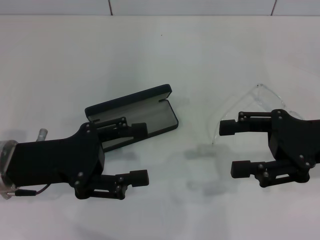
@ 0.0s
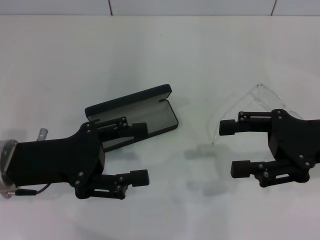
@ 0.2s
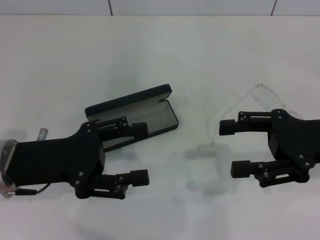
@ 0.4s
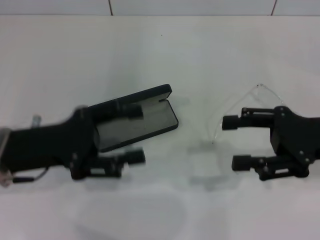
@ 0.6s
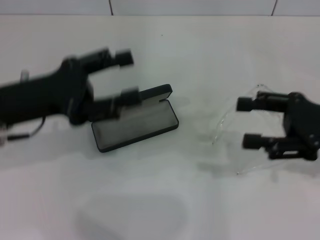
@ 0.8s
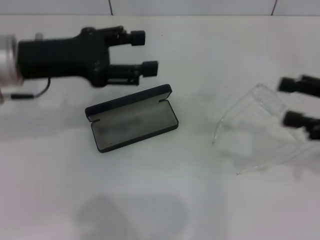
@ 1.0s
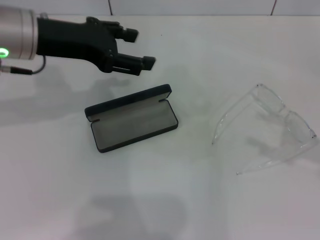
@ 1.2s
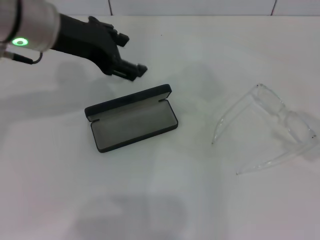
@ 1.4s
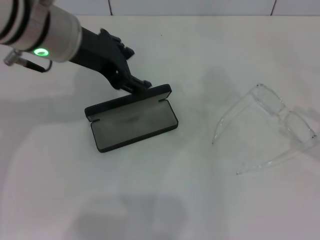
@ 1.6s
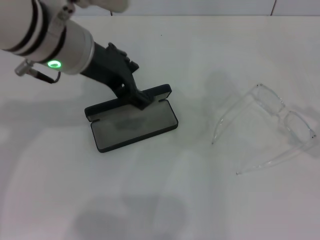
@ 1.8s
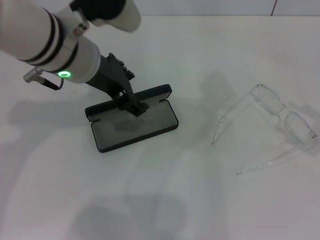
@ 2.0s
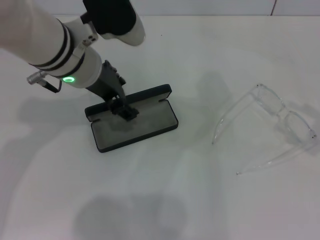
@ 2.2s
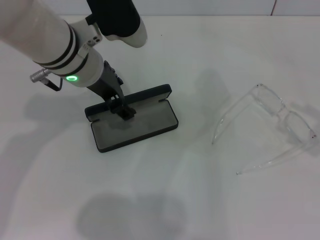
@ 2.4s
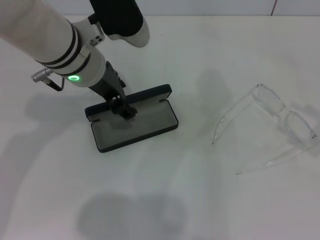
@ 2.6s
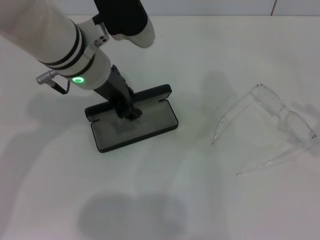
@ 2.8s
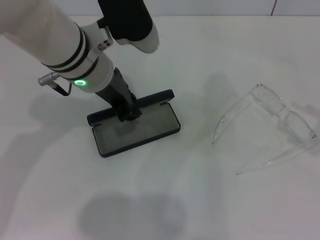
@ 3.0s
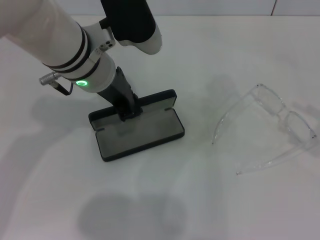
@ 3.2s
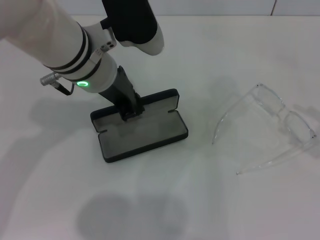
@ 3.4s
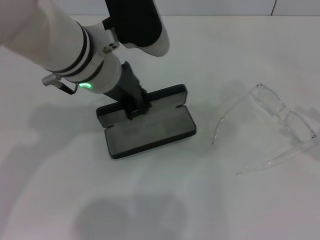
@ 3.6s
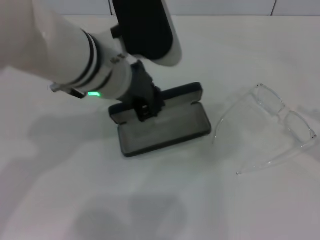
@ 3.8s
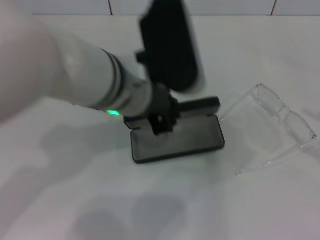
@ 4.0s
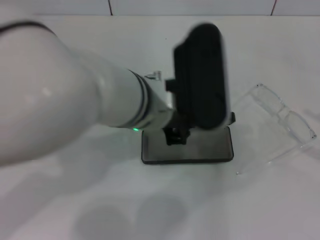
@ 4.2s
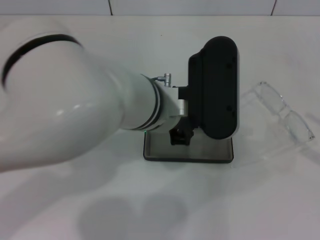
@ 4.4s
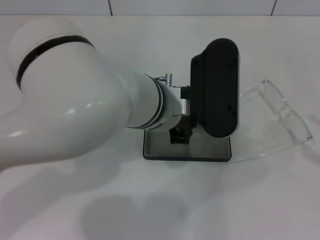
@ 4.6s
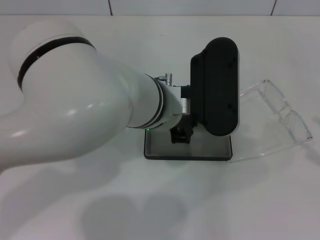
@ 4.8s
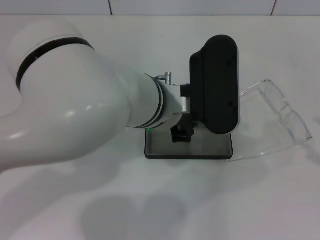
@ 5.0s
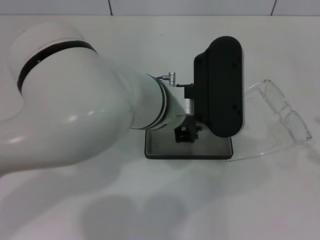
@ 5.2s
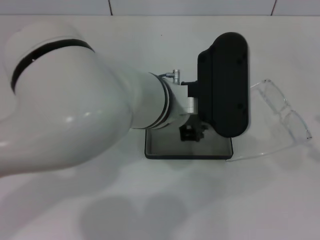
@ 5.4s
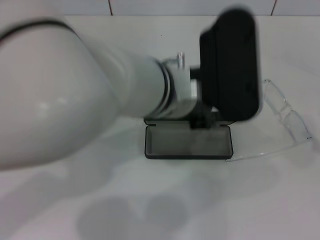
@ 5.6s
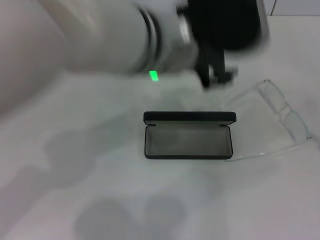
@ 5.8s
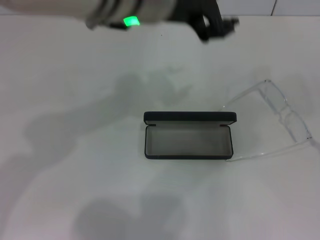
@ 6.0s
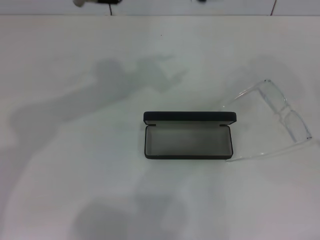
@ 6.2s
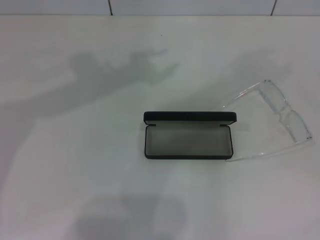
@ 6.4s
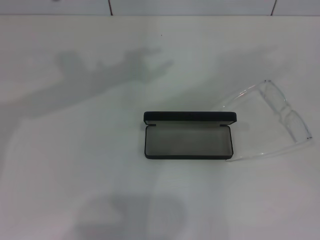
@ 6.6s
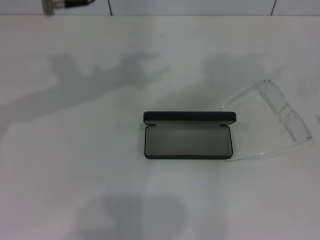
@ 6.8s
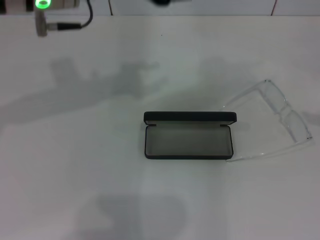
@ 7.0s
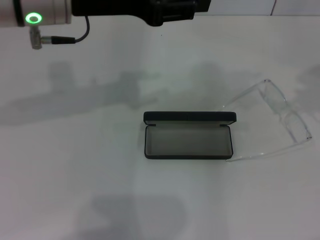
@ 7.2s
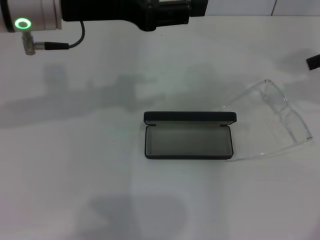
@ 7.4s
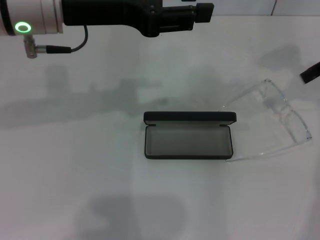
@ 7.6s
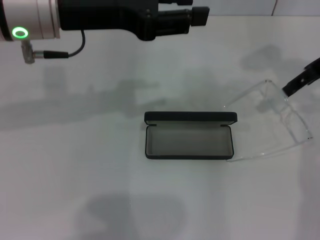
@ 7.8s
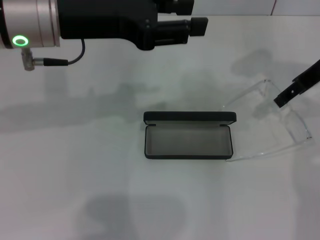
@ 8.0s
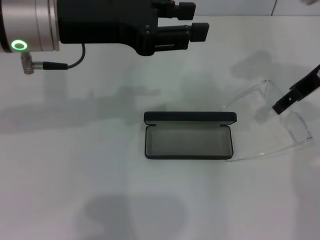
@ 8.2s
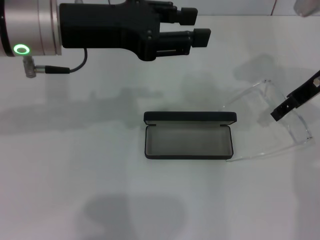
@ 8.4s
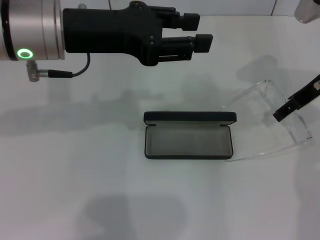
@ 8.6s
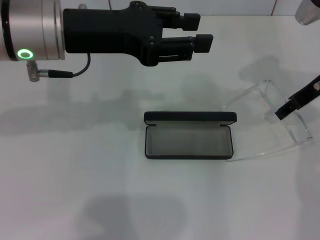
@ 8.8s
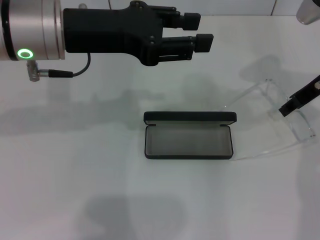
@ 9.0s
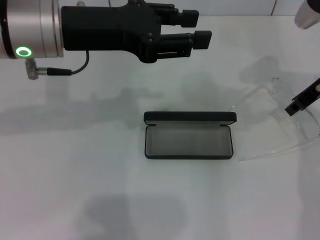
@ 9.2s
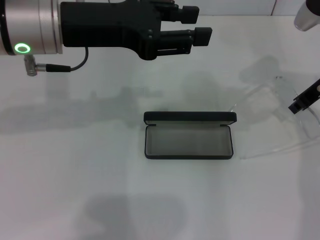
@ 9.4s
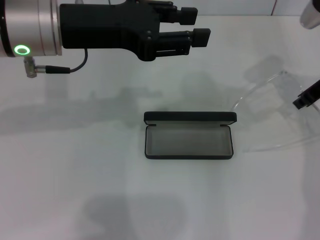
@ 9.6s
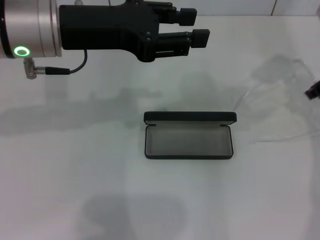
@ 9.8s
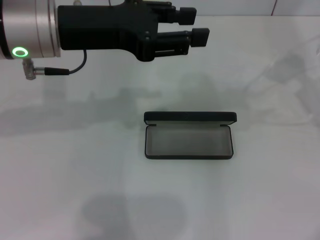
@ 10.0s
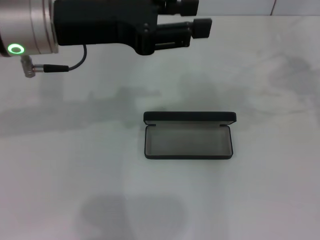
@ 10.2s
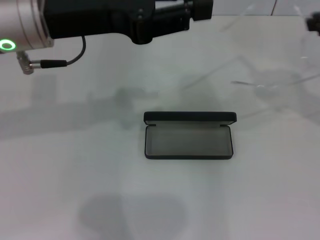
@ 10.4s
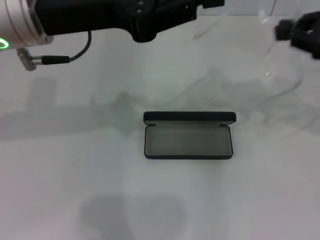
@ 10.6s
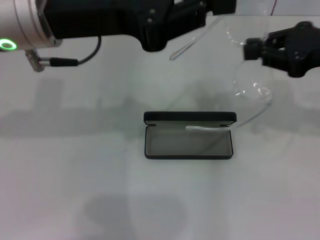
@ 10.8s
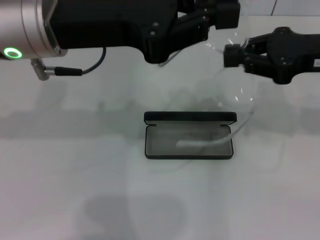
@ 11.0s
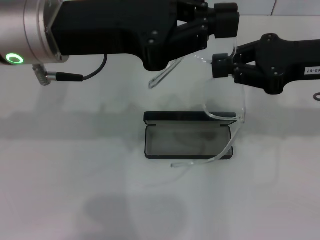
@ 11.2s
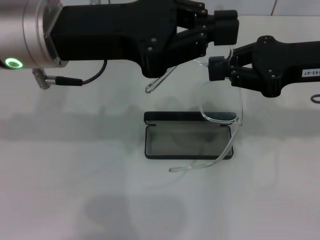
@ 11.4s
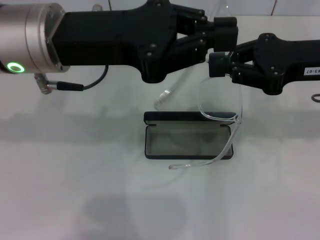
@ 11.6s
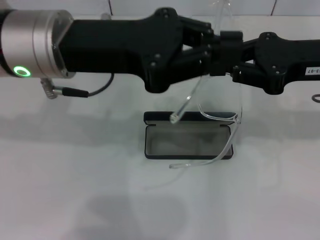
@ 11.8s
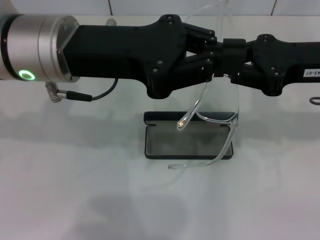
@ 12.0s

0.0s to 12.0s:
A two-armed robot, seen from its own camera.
Step, 0.0s to 2.8s: Grab the glasses case with your left hand.
Step, 3.0s to 5.0s: Place the glasses case in the center of the table with your left hand.
Step, 5.2s to 9.2s: Grab the eyeglass frame with your right hand.
0.0s to 1.6s: The left gripper heads upward, forward and to the right, covering about 20 cm, while the right gripper goes about 15 cm to the right.
1.6s to 3.0s: The left gripper travels downward by roughly 5 cm.
3.0s to 4.4s: The left gripper is displaced to the right and backward by approximately 10 cm, and closes its fingers.
4.4s to 6.0s: The left gripper heads upward, covering some 10 cm, and opens up.
6.0s to 7.6s: The left gripper is displaced to the left by roughly 10 cm, while the right gripper is displaced forward, to the left and upward by roughly 25 cm.
7.6s to 9.0s: The right gripper heads downward, covering about 10 cm.
9.0s to 10.4s: The right gripper shifts approximately 10 cm upward and backward, and closes.
10.4s to 12.0s: The left gripper closes its fingers. Meanwhile the right gripper goes approximately 10 cm to the left and downward.

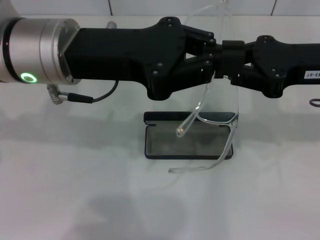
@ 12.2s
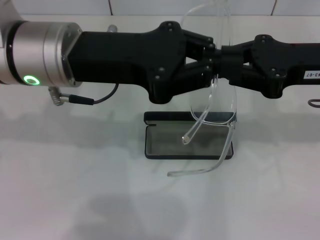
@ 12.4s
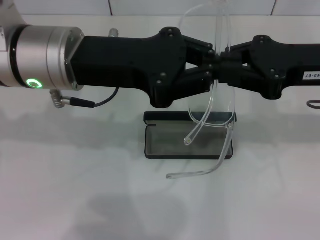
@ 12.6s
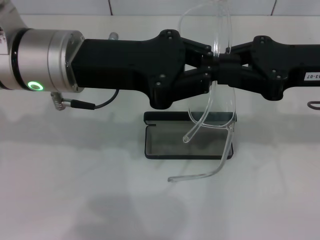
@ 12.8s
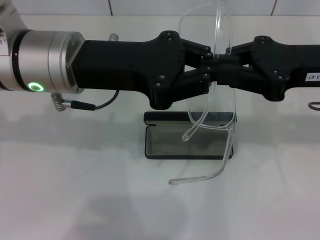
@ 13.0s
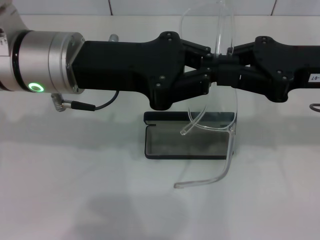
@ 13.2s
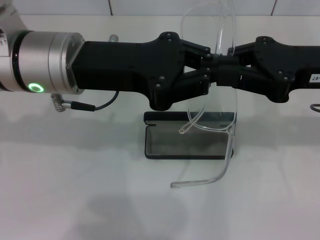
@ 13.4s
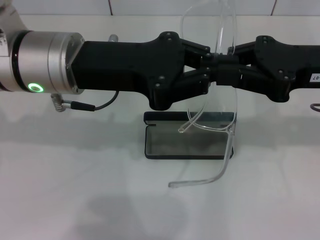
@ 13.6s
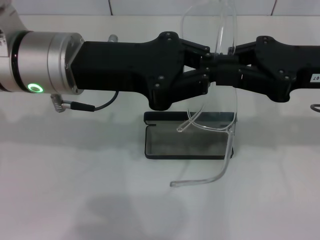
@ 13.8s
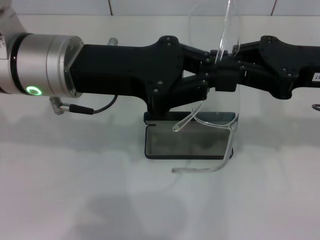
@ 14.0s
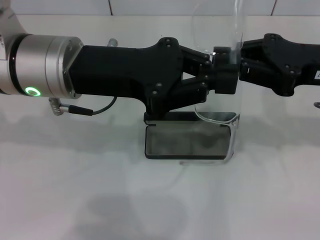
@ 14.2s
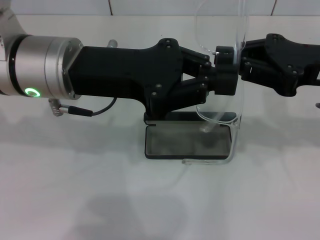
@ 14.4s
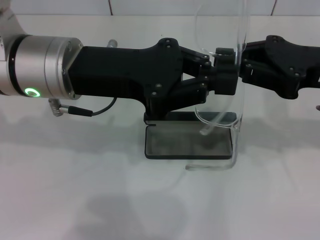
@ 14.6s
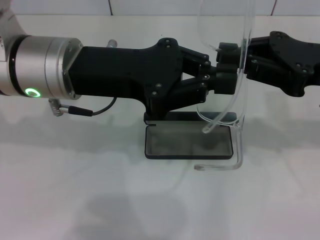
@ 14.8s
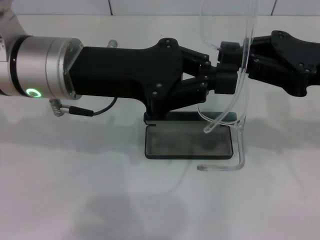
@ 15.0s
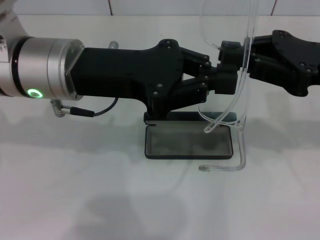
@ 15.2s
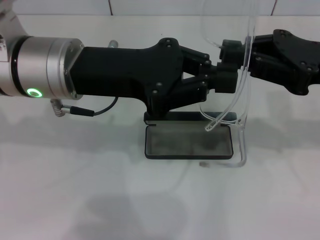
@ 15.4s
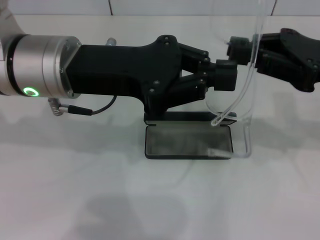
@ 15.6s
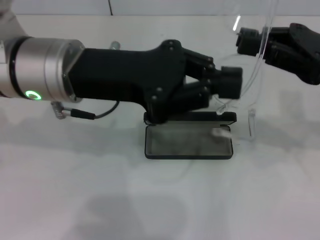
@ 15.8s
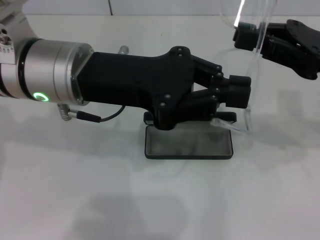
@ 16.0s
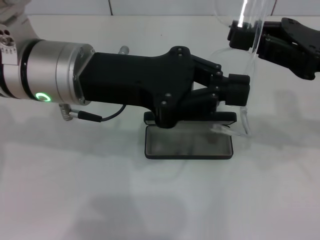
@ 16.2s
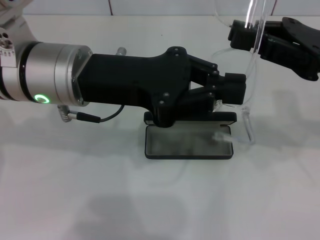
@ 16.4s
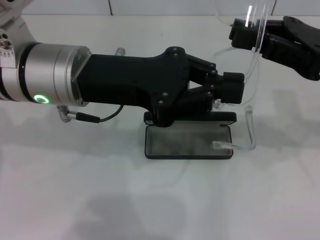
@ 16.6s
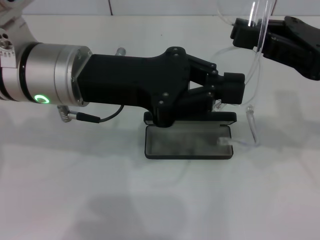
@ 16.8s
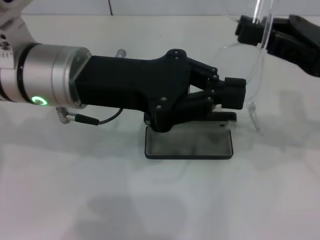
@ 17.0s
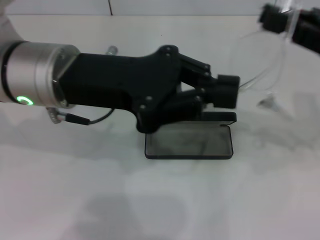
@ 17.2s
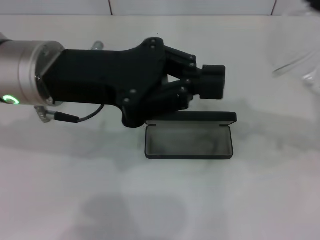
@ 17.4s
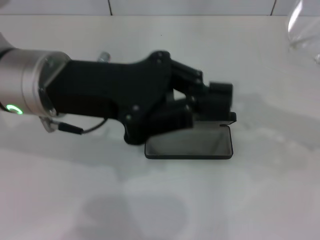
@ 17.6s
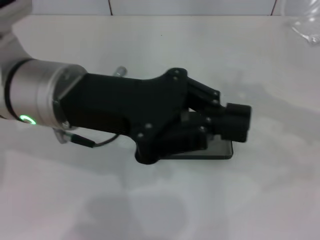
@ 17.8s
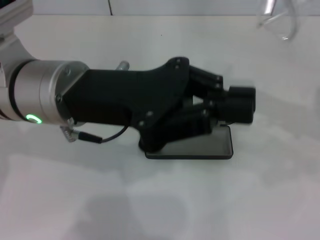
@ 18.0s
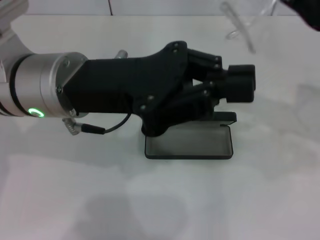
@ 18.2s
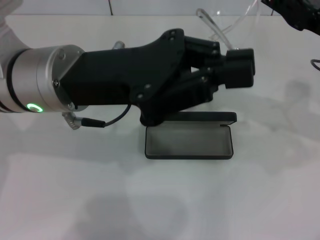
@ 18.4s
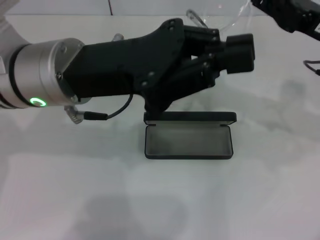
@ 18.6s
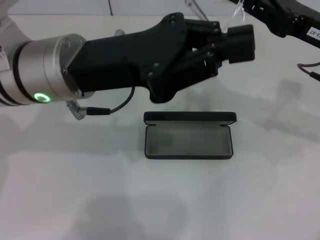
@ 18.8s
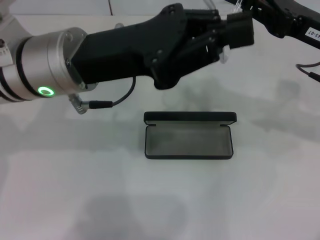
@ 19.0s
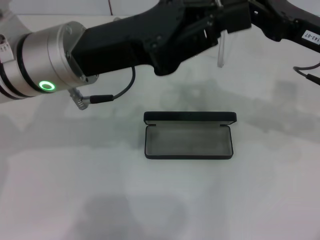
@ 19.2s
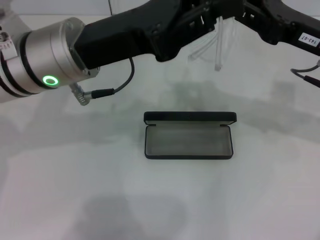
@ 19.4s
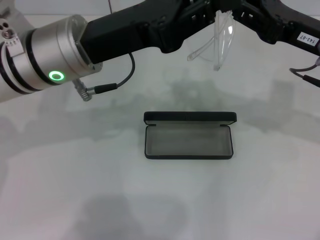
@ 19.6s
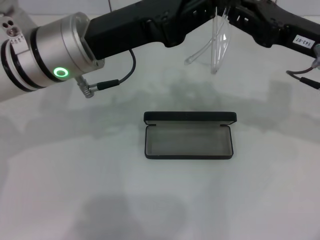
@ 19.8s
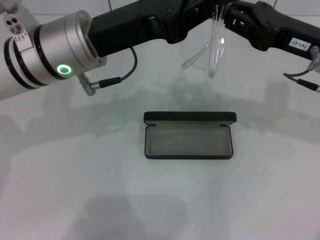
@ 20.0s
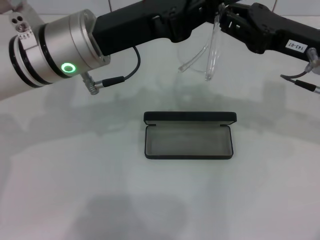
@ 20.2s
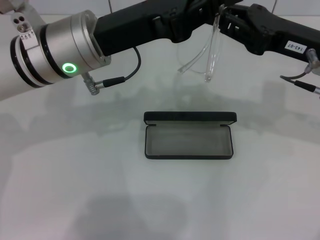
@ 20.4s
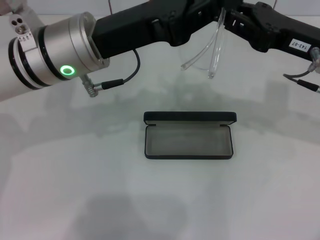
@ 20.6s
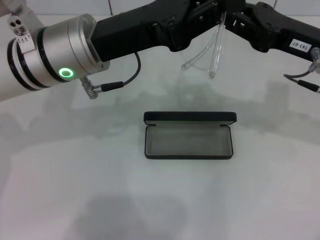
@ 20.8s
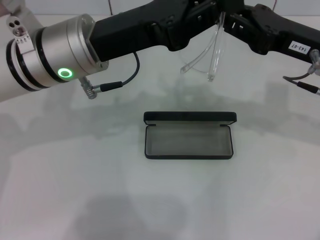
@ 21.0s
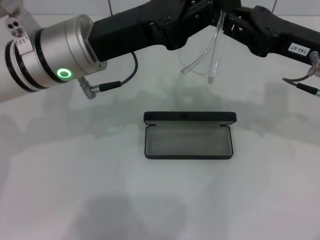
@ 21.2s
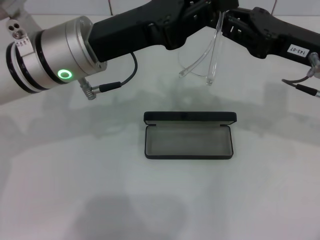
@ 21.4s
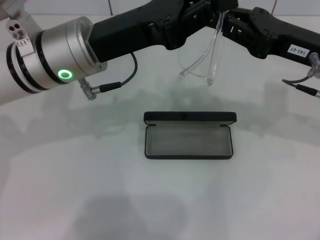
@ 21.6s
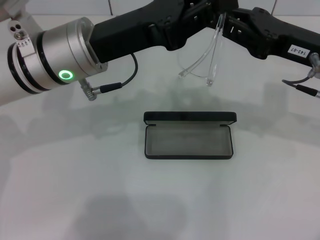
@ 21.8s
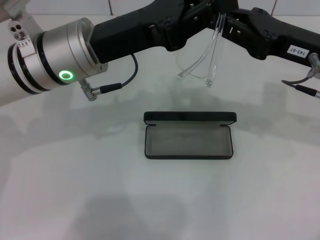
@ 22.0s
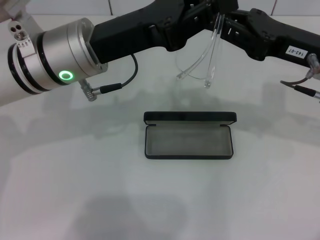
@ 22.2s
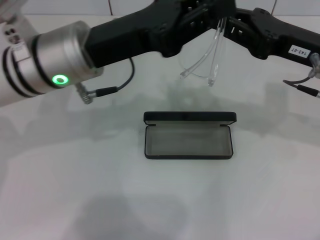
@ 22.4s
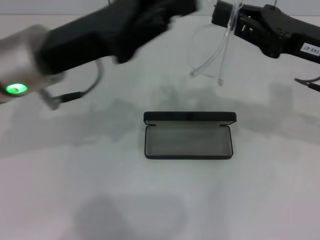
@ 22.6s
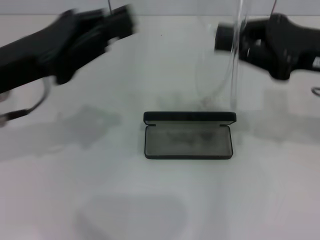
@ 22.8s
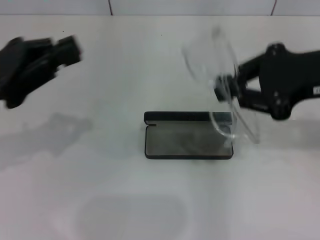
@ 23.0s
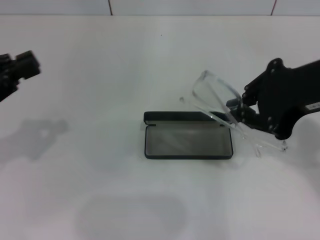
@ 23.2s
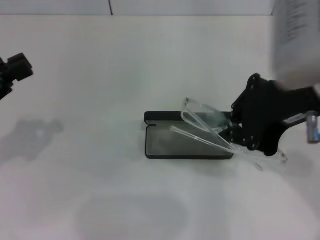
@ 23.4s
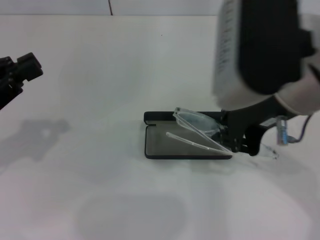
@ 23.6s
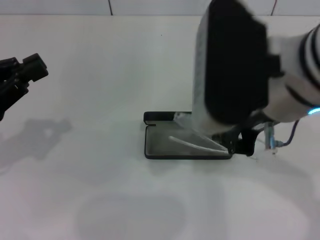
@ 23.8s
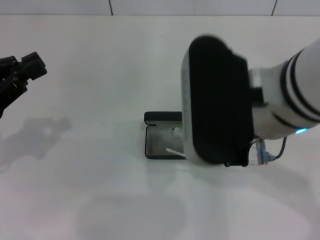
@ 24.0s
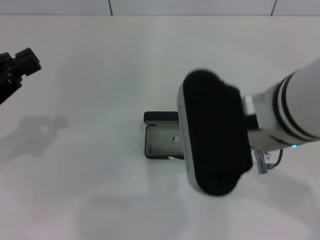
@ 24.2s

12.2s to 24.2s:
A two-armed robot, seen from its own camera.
Step, 12.2s to 20.6s: Fold the frame with your left hand.
12.2s to 16.6s: There are only small adjustments of the grippers.
19.8s to 21.2s: The two grippers keep their place.
21.2s to 22.6s: The grippers stay close to where they were, moving slightly.
22.6s to 24.2s: The two grippers go roughly 15 cm to the left and backward.
